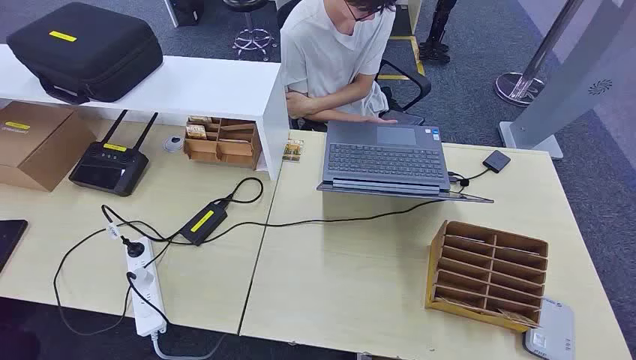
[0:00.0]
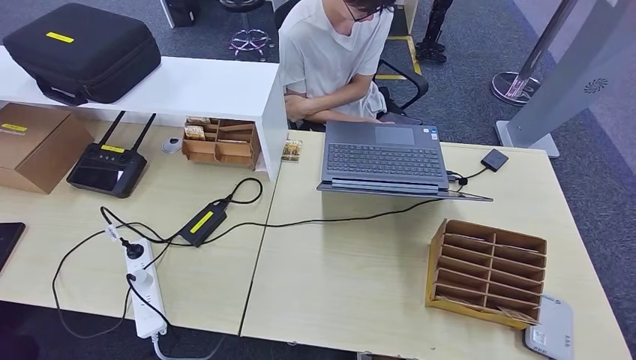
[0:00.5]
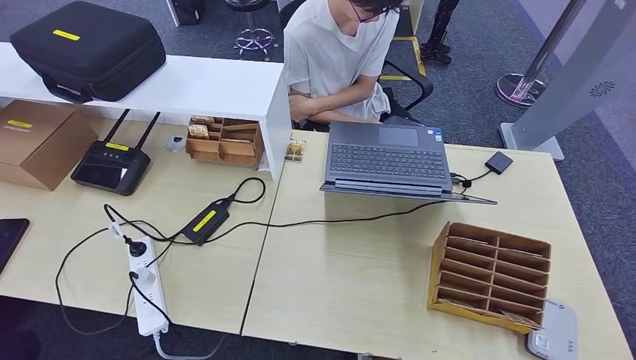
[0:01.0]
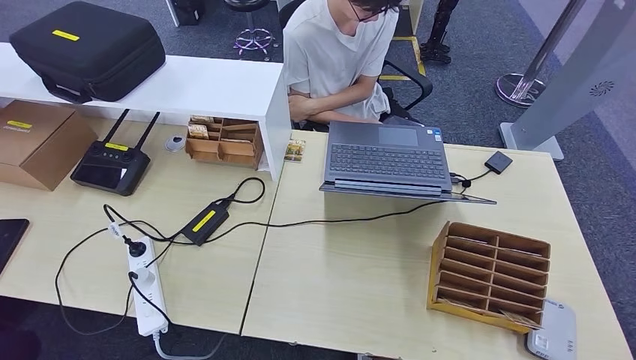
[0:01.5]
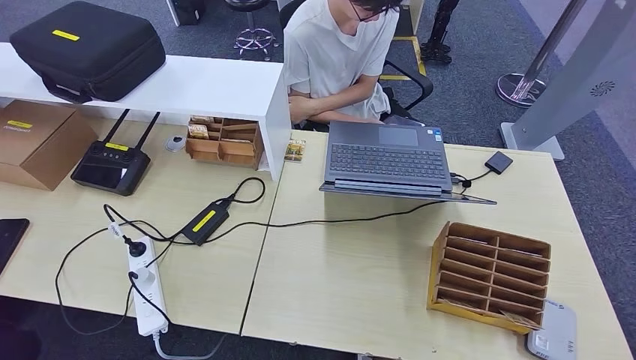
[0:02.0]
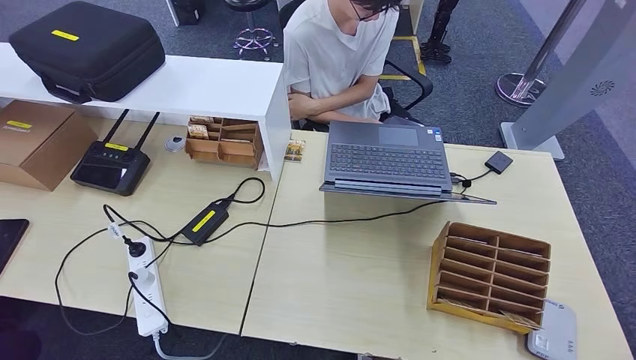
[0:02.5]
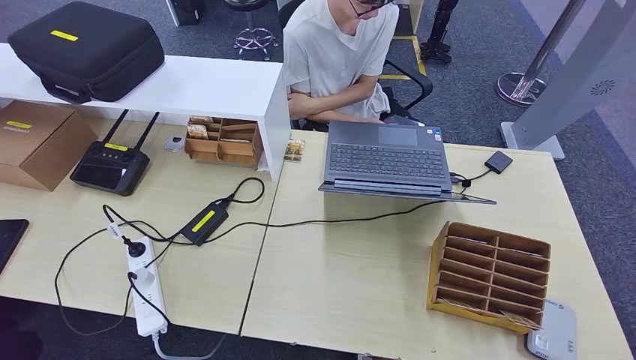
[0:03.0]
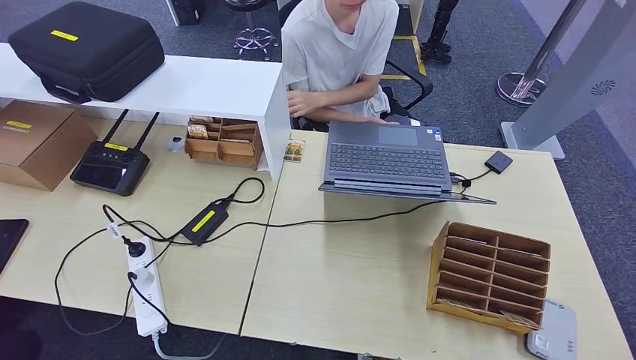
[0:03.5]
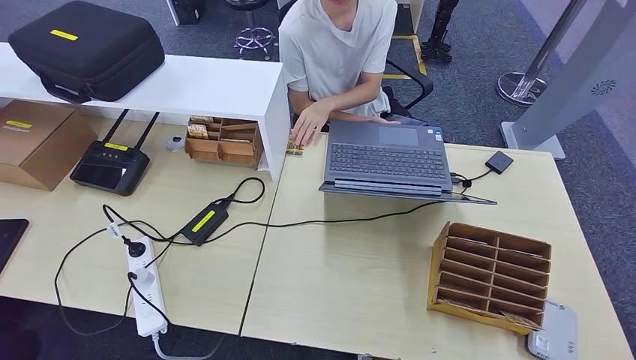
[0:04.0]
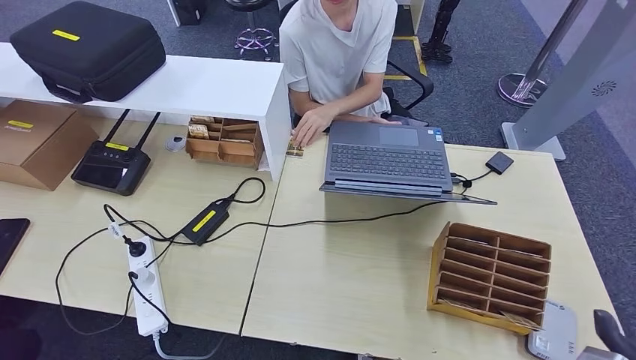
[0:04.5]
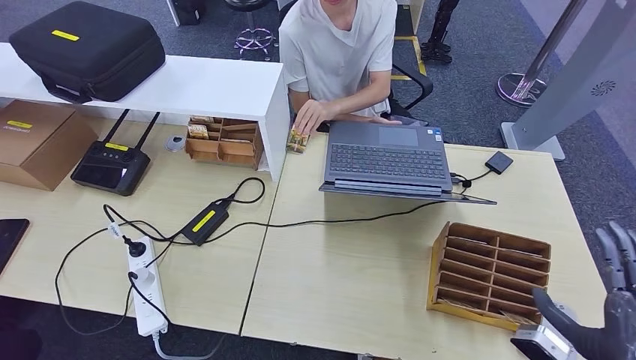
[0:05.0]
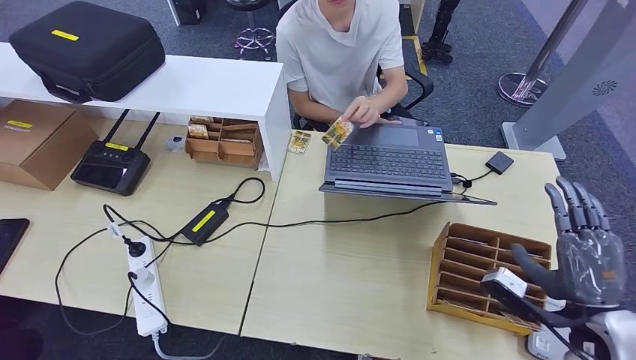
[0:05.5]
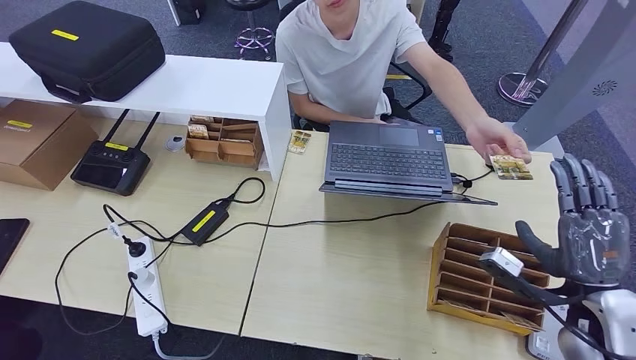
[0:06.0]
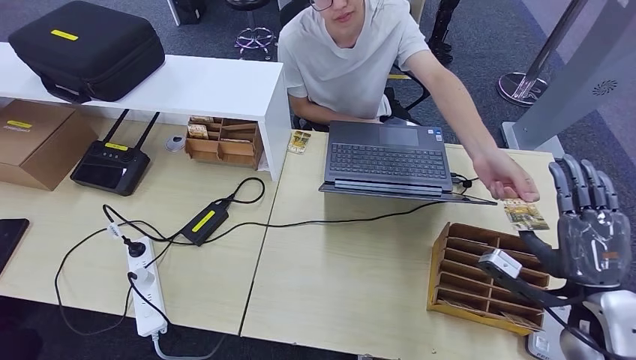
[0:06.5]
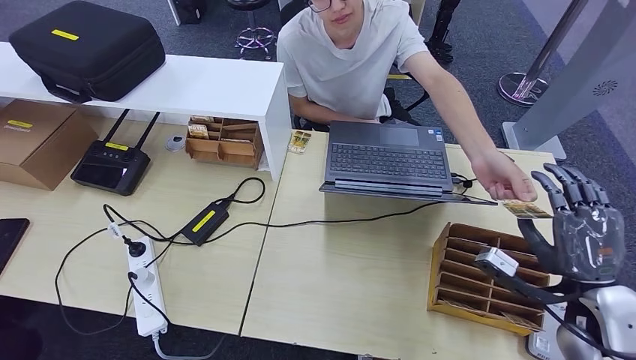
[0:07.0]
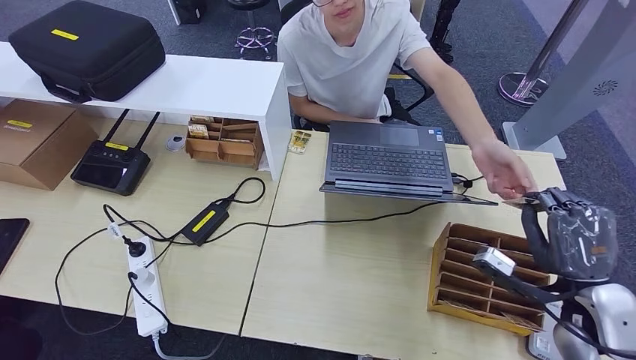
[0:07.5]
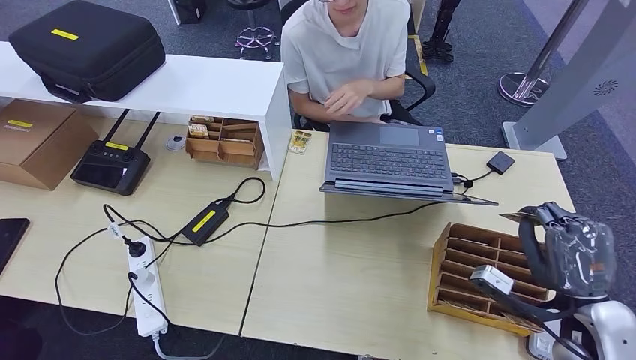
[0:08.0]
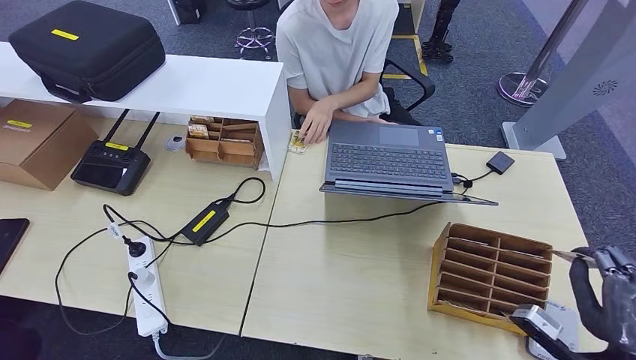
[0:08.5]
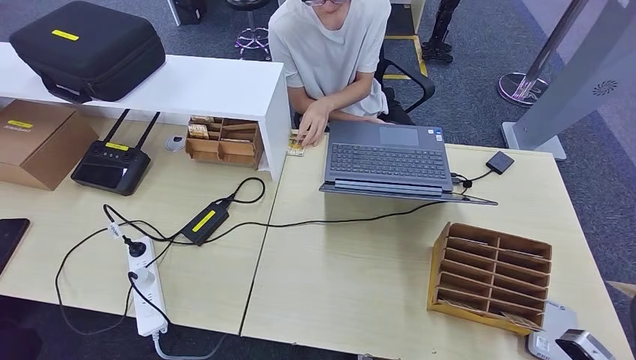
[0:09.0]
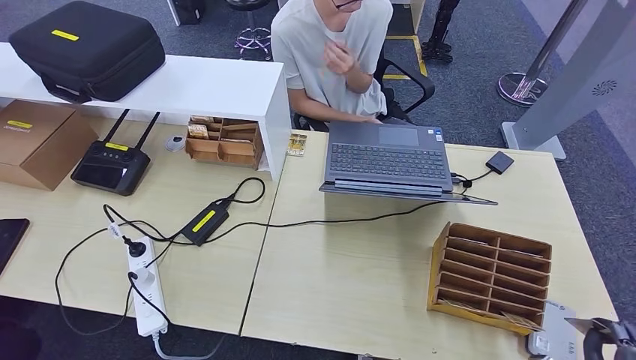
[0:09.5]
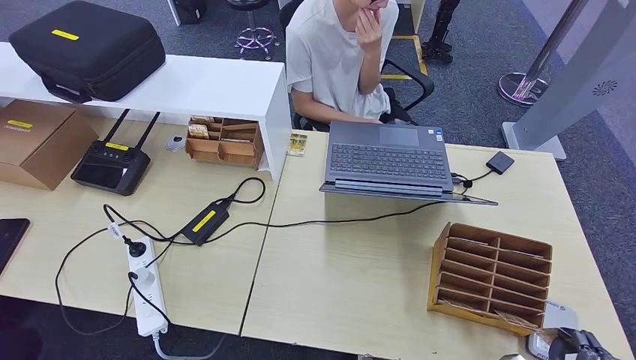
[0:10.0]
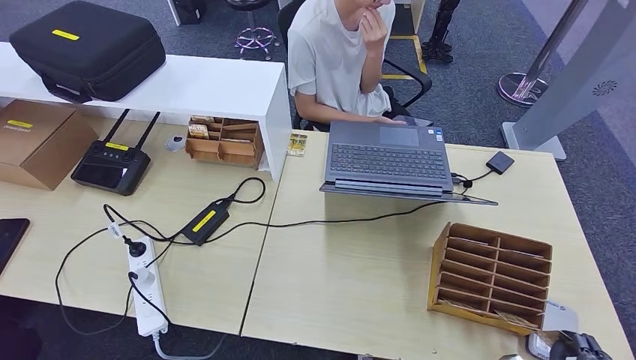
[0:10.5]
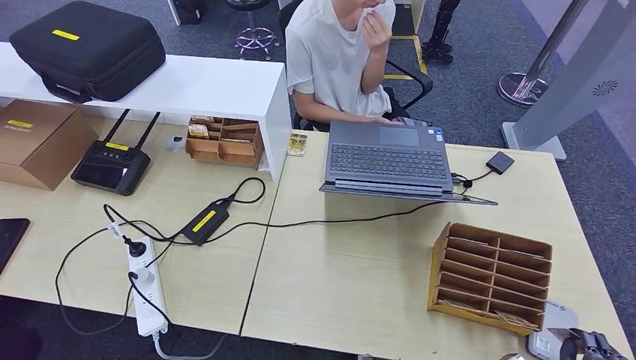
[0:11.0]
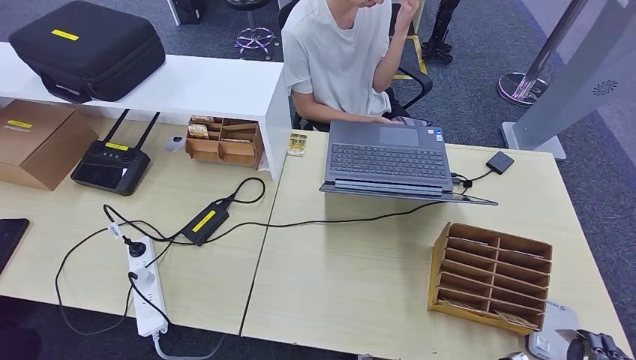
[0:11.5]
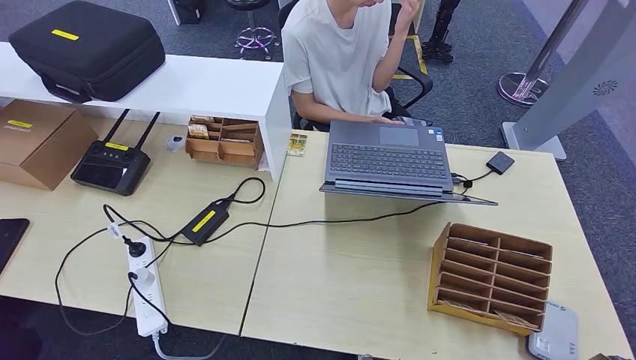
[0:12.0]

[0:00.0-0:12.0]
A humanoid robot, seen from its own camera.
Step, 0.0 to 8.5 s: Take the ID card from the person's hand.
2.0 to 4.0 s: The right hand shifts some 25 cm upward and to the left.
4.0 to 6.0 s: The right hand travels forward by about 25 cm.
6.0 to 8.0 s: The hands make only small movements.
8.0 to 10.0 s: The right hand is displaced backward and downward by some 20 cm.
10.0 to 12.0 s: The right hand heads to the right, covering roughly 5 cm.

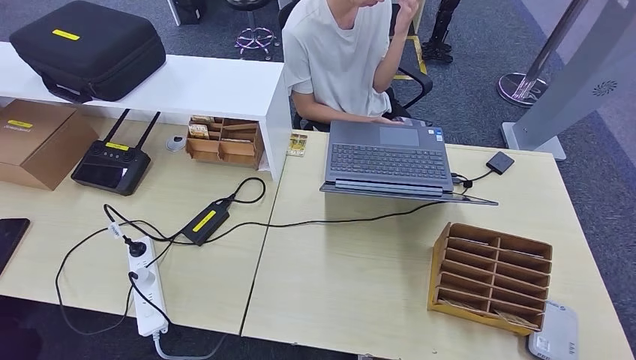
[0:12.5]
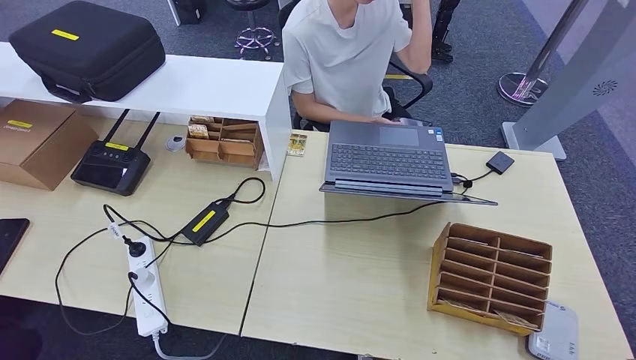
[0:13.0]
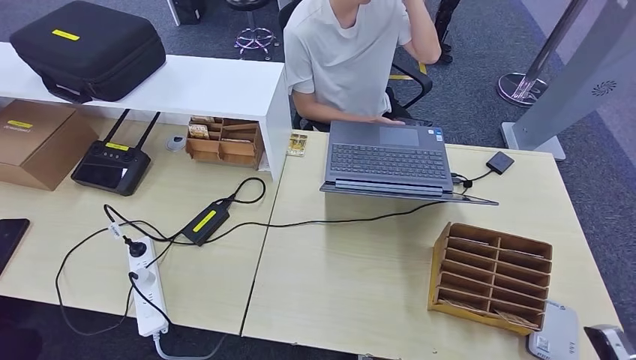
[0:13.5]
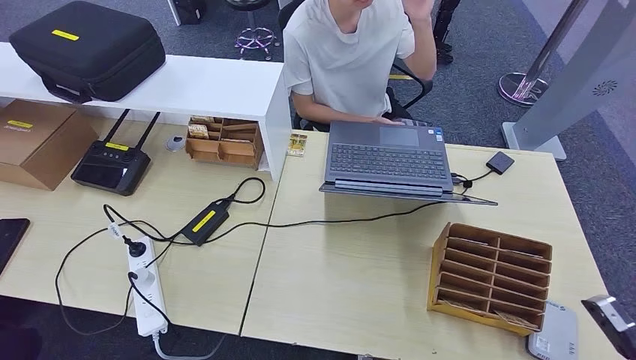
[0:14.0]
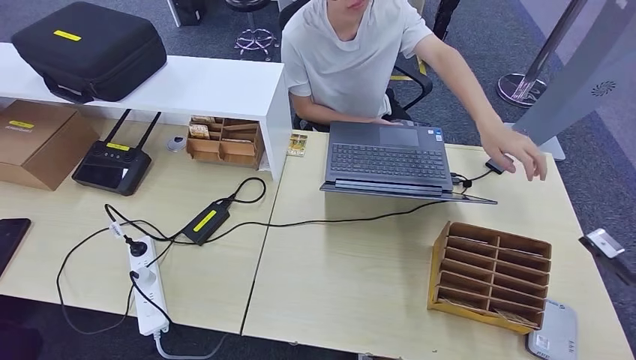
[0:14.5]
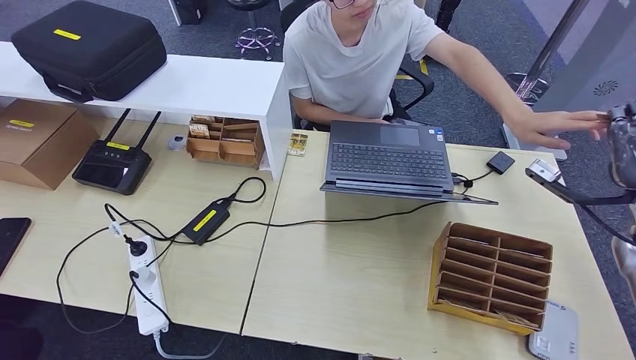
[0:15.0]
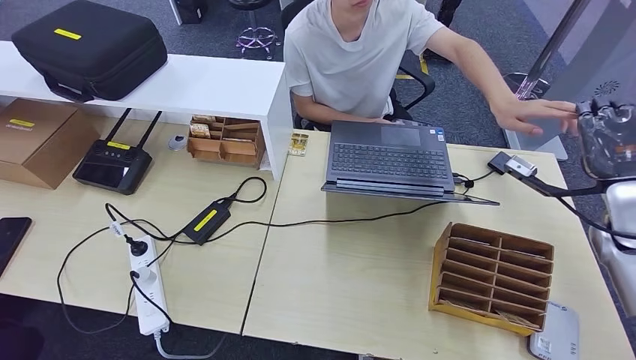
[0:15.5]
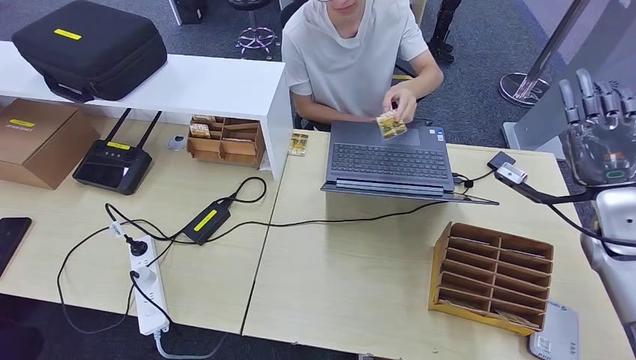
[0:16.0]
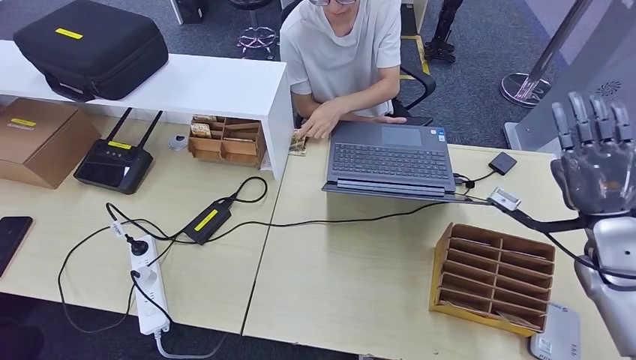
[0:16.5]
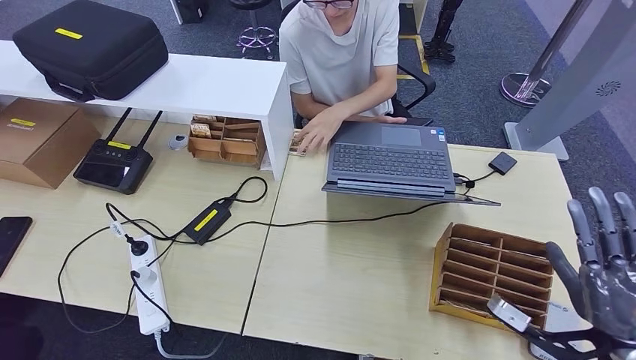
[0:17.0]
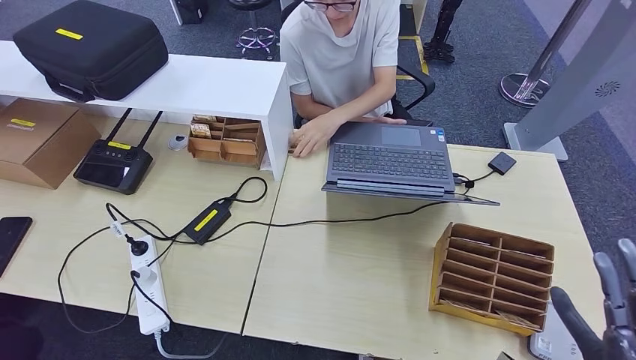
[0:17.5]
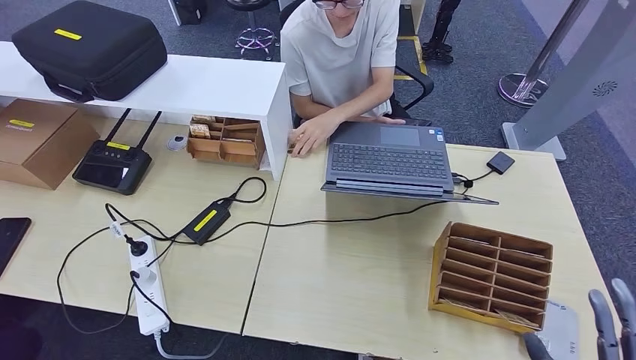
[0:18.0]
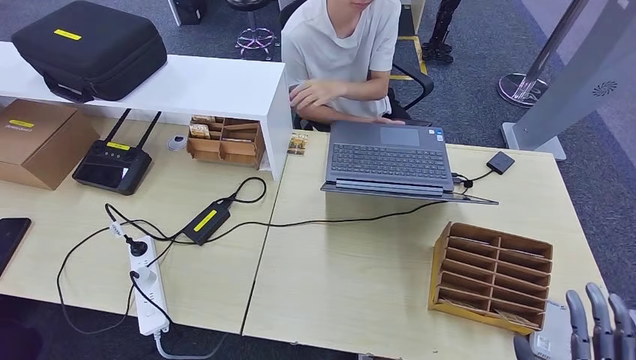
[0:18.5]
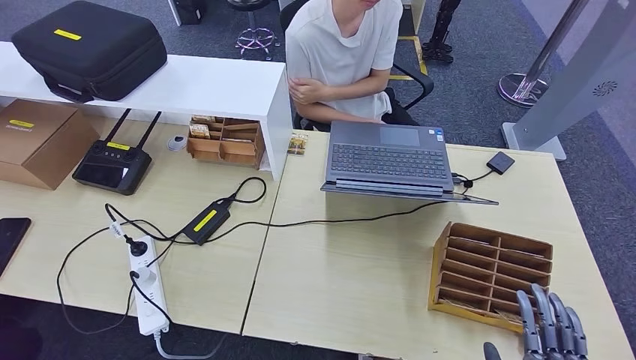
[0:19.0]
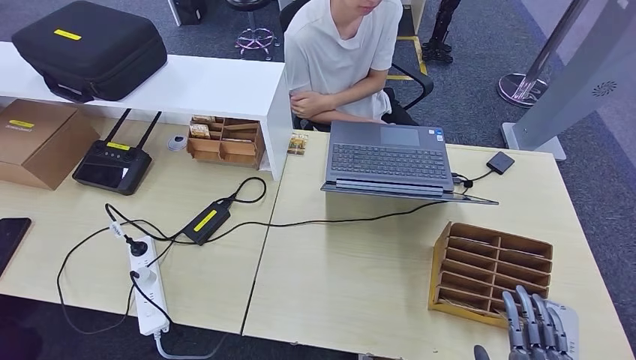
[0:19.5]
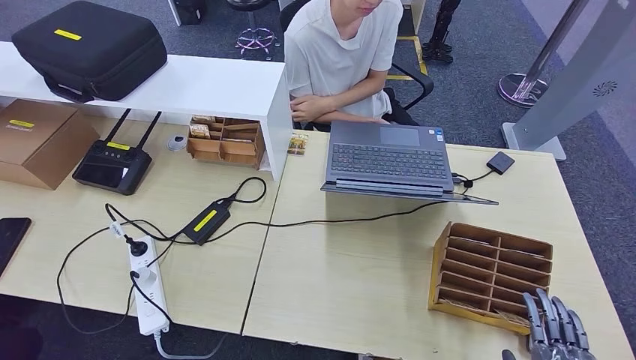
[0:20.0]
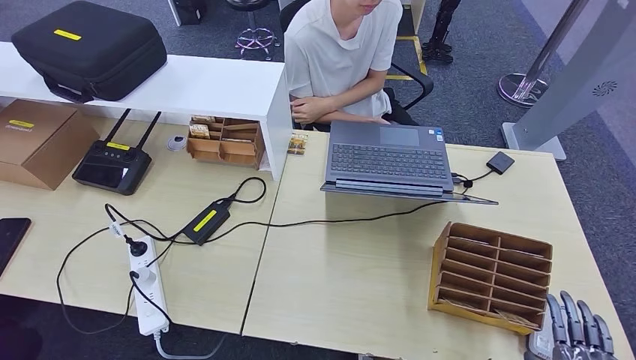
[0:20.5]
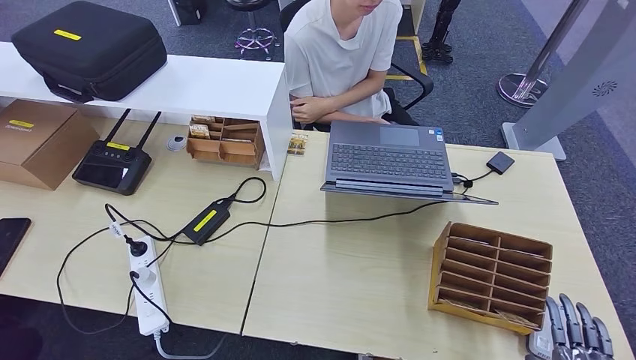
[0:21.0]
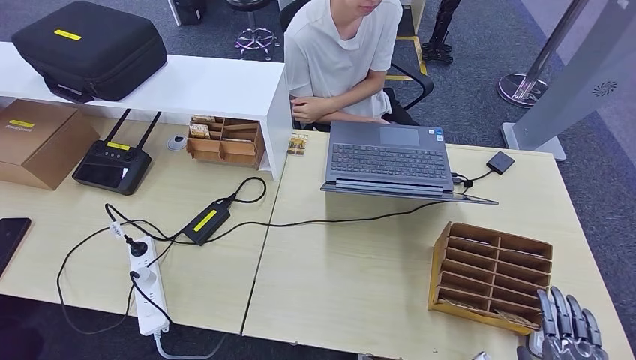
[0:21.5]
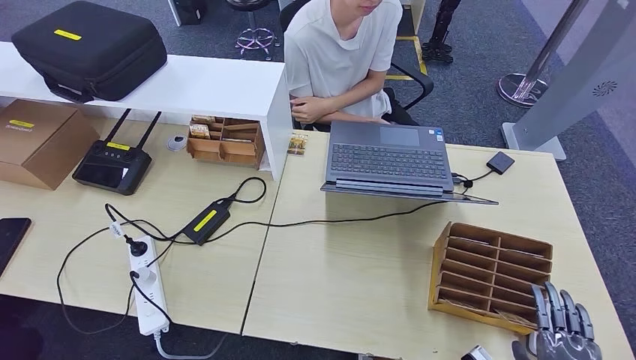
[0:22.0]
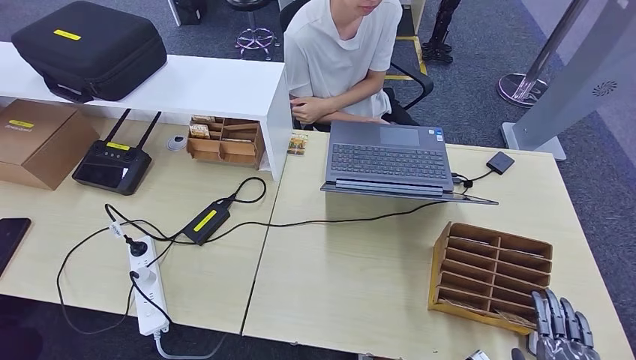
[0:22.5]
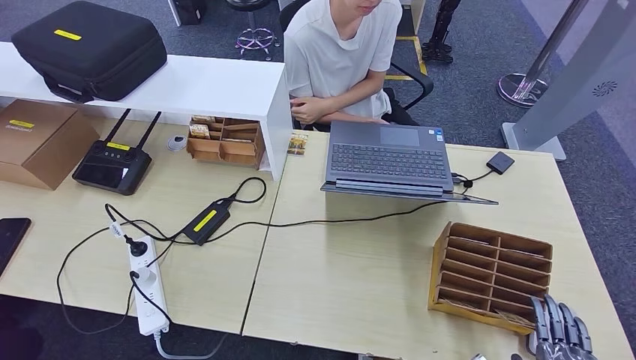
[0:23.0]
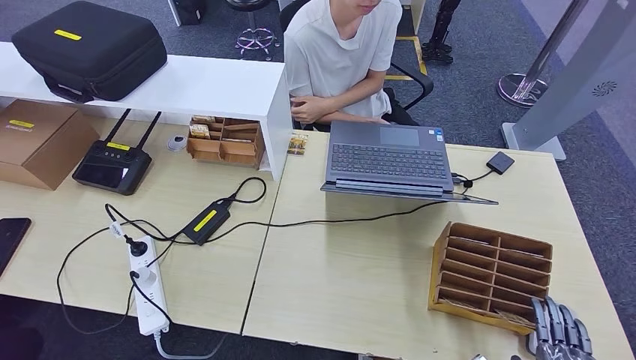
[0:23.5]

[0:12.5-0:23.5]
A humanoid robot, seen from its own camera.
Step, 12.5 to 14.5 s: Place the ID card on the card reader.
Step, 15.0 to 18.5 s: Hand the ID card to the person.
12.5 to 14.5 s: The right hand heads upward and forward, covering approximately 30 cm.
14.5 to 16.0 s: The right hand moves forward and to the left, some 15 cm.
16.0 to 18.0 s: The right hand moves backward, roughly 30 cm.
18.0 to 20.0 s: The right hand moves downward, about 10 cm.
20.0 to 23.5 s: There are only small adjustments of the hands.
